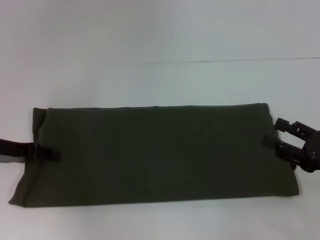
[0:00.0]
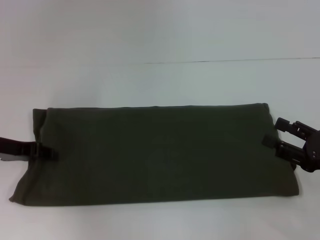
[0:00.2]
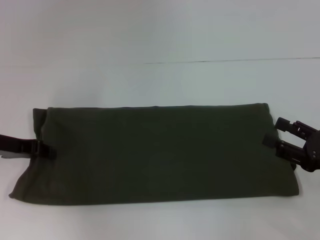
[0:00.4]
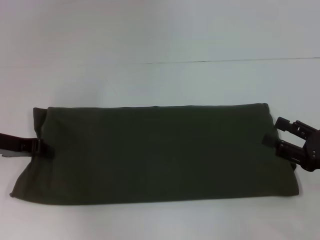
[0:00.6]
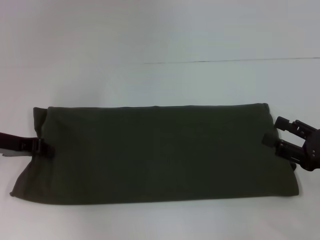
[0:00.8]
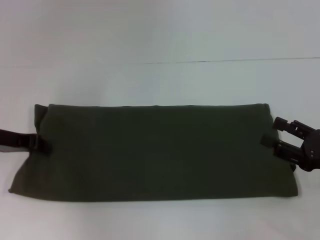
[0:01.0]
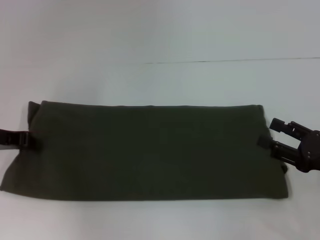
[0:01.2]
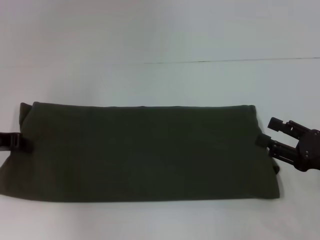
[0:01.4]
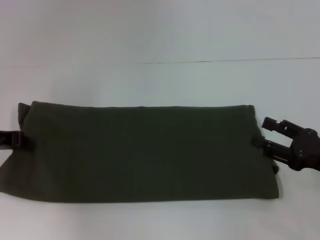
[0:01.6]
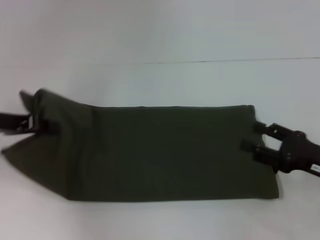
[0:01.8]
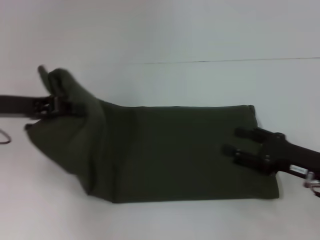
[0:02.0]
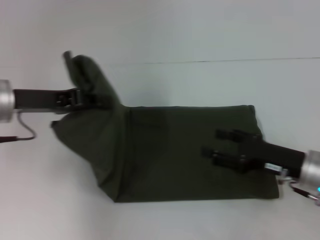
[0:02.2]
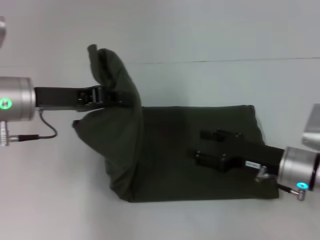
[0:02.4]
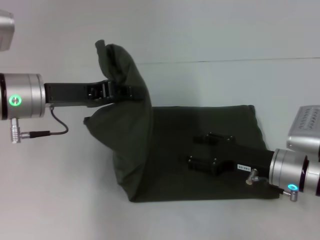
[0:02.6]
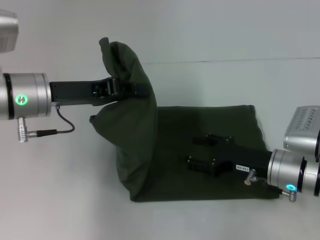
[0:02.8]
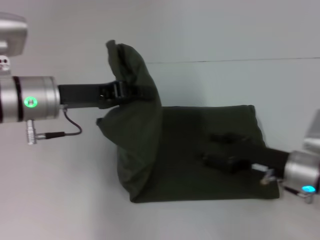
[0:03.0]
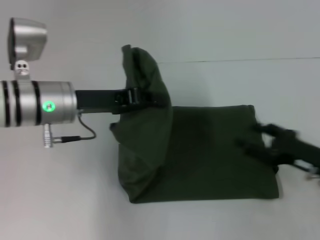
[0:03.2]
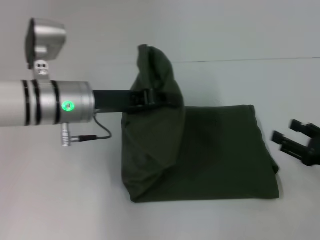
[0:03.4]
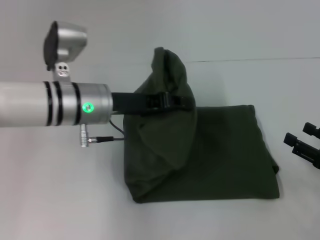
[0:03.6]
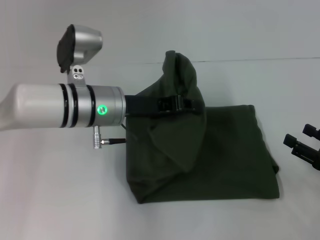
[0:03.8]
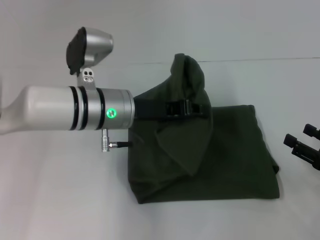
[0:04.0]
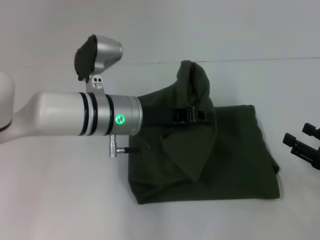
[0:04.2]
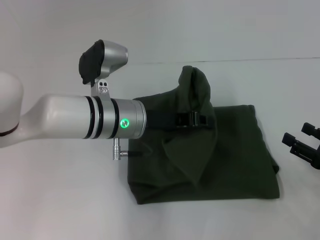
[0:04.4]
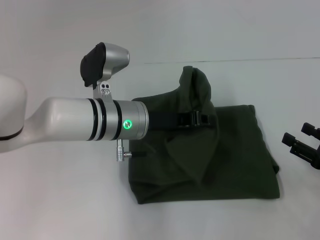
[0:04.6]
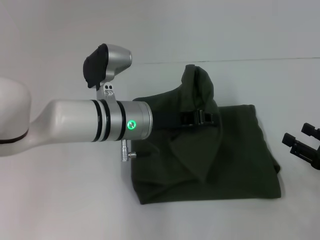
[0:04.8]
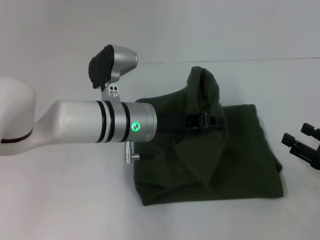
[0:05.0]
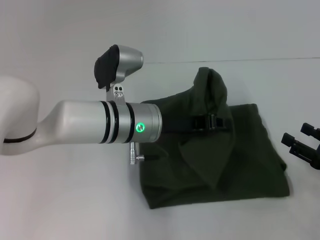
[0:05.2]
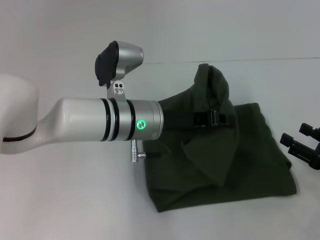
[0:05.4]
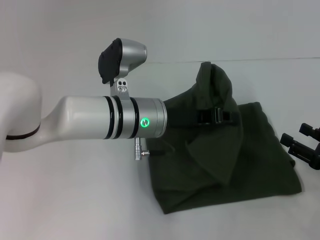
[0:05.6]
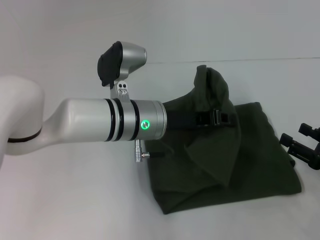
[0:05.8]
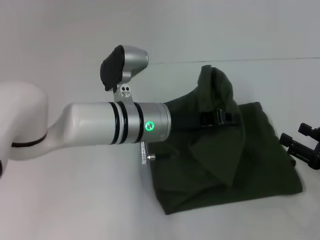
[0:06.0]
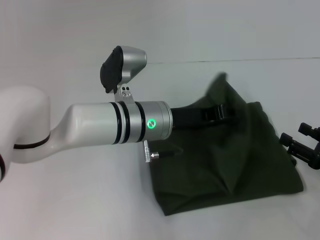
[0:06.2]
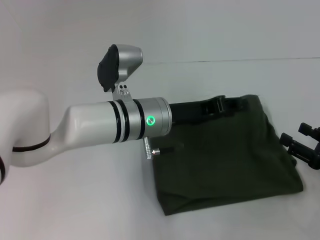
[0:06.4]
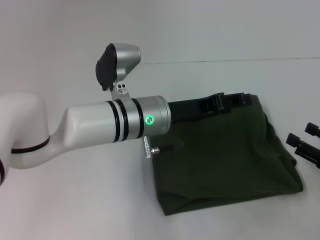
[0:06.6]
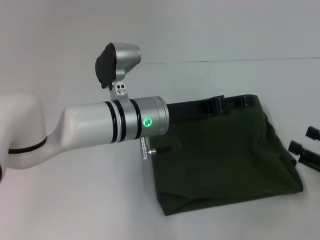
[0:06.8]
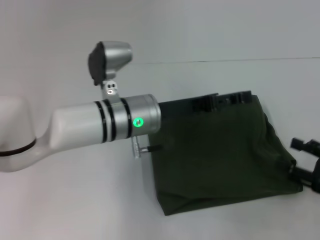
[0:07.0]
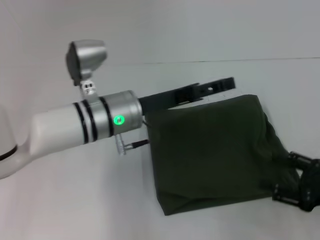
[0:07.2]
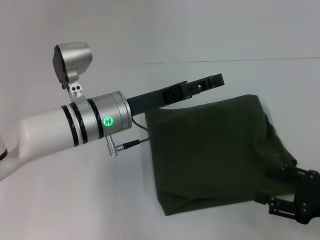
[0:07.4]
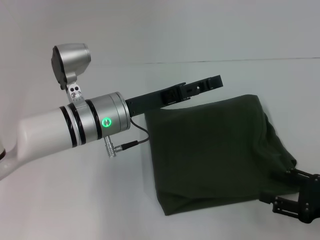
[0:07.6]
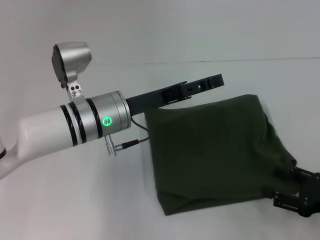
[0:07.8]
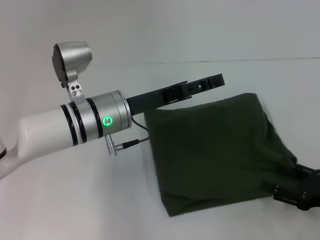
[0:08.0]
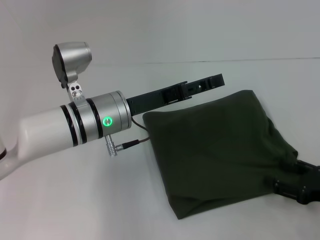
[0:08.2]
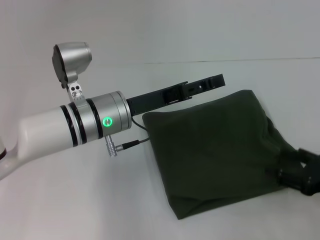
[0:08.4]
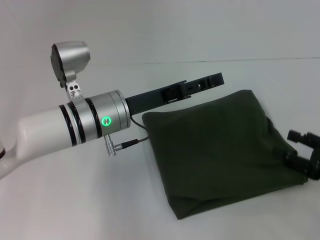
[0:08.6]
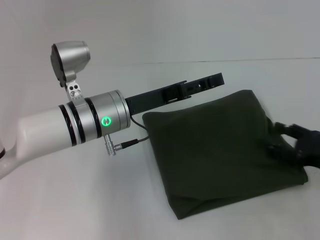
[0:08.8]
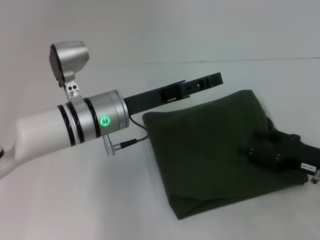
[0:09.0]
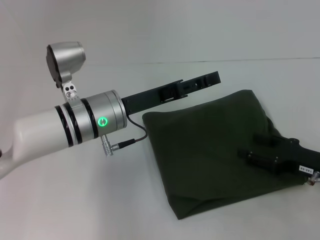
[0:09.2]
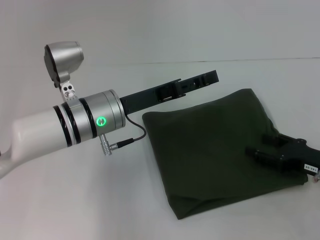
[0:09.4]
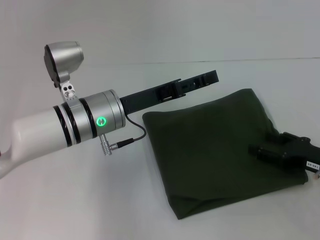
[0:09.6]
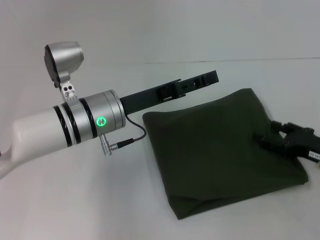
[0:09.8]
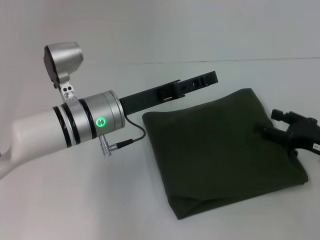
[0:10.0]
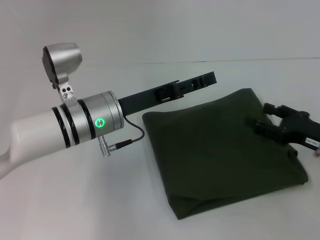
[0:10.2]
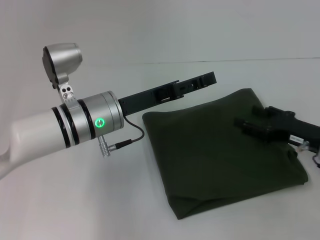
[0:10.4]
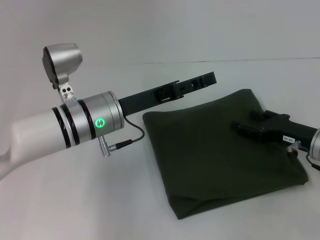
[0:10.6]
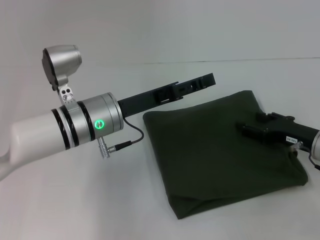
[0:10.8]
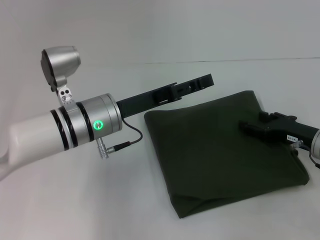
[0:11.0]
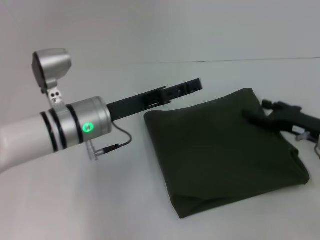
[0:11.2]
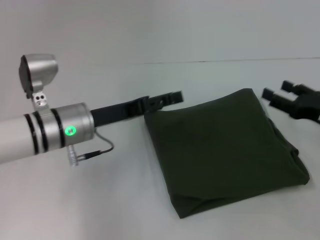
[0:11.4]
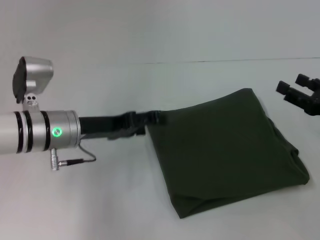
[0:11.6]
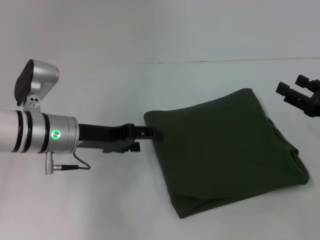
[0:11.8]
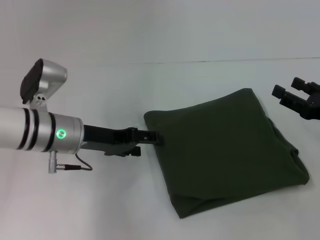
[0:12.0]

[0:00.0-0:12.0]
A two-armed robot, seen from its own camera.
Step, 0:00.0 to 0:07.2: Fold the clothes with your left hand.
0:00.0 to 0:01.6: The left gripper closes its fingers.
0:01.6 to 0:03.0: The right gripper heads to the left, covering approximately 10 cm. The left gripper travels to the right by some 15 cm.
0:03.0 to 0:04.4: The right gripper travels to the right and backward by approximately 15 cm, while the left gripper moves to the right, approximately 10 cm.
0:06.0 to 0:07.6: The left gripper heads to the left, covering approximately 5 cm, and opens its fingers.
0:07.6 to 0:09.0: The right gripper heads forward, covering some 5 cm.
0:09.0 to 0:10.4: There are only small adjustments of the grippers.
0:10.4 to 0:12.0: The left gripper goes approximately 5 cm to the left.

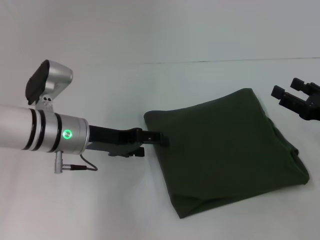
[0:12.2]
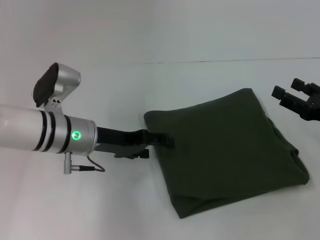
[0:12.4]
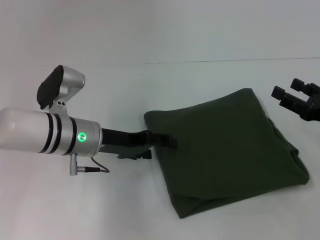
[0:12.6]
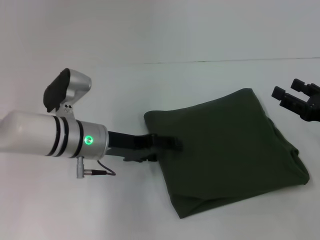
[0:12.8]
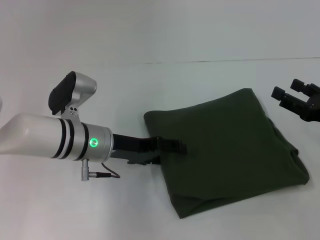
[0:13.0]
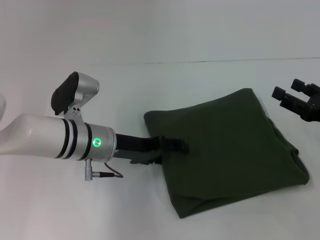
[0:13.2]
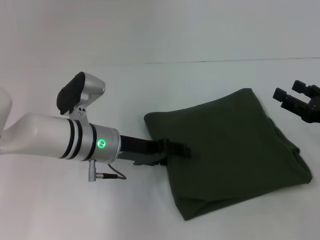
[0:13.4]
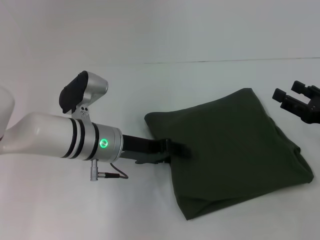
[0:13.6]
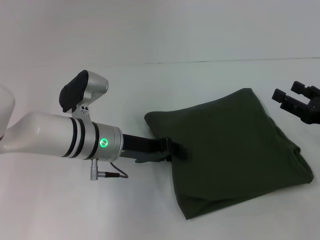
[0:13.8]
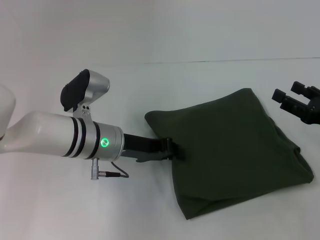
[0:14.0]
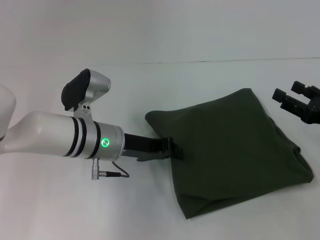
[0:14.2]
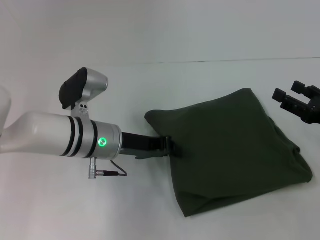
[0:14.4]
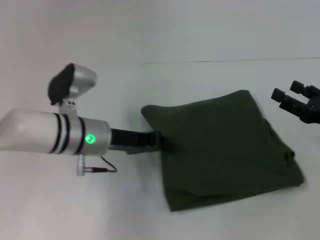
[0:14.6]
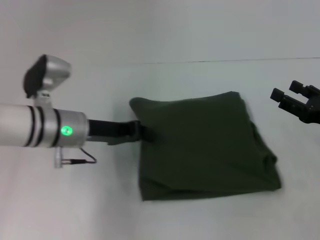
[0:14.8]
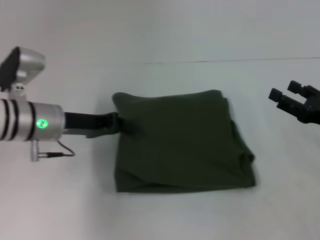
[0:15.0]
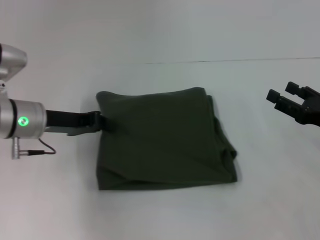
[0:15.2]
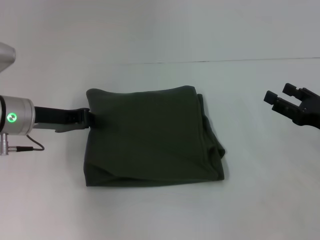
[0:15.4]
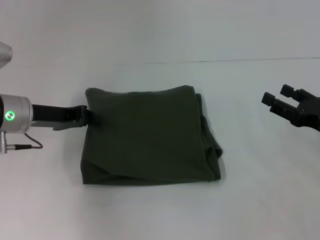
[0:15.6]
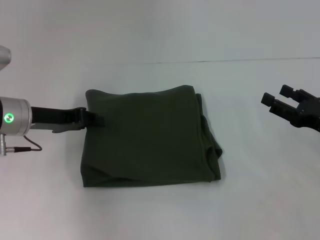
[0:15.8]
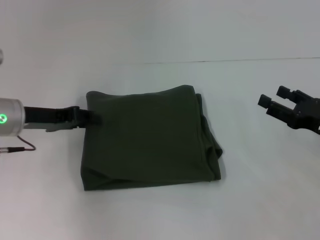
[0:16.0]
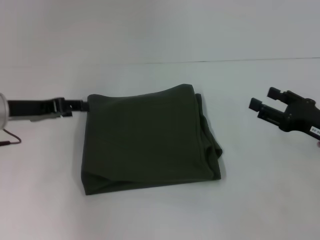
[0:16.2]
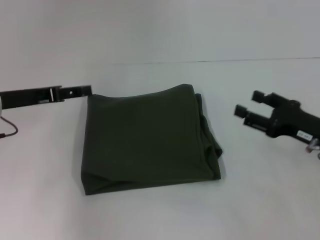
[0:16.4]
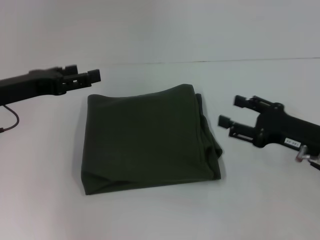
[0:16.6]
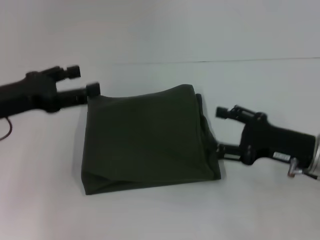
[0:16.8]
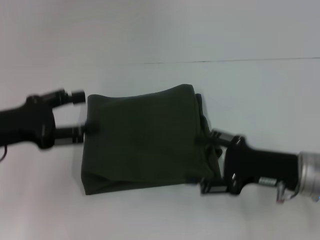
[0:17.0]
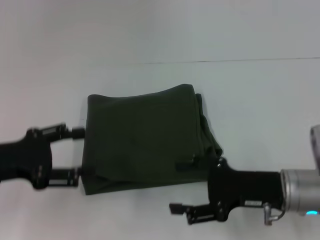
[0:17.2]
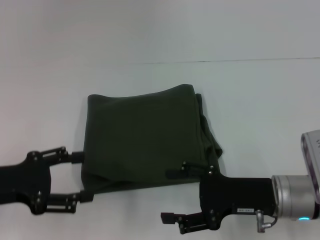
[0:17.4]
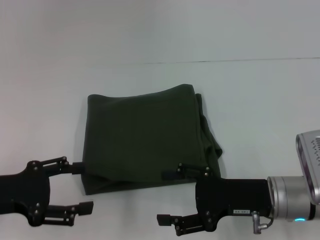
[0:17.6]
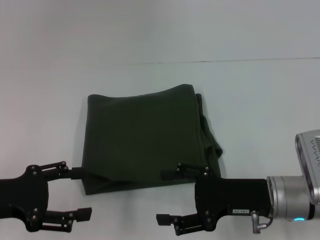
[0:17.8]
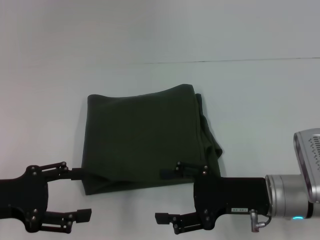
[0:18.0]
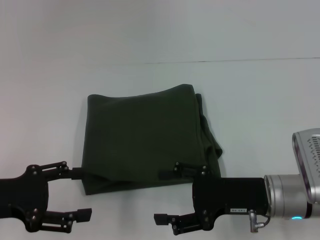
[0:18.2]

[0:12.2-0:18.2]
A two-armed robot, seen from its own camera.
0:12.2 to 0:13.8: The left gripper shifts by approximately 5 cm, and closes.
0:13.8 to 0:15.2: The left gripper shifts approximately 10 cm to the left, and closes up.
0:15.2 to 0:16.6: The left gripper changes place by about 5 cm, and opens. Meanwhile the right gripper moves to the left, some 5 cm.
0:16.6 to 0:18.2: The left gripper goes approximately 10 cm backward, while the right gripper goes some 10 cm to the left.

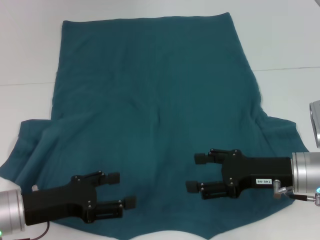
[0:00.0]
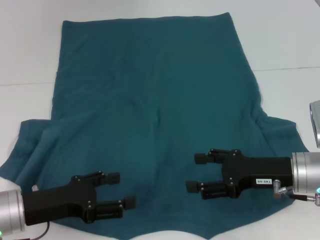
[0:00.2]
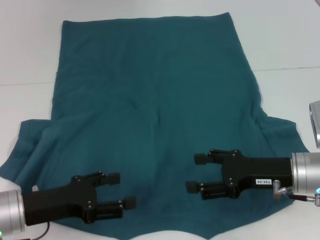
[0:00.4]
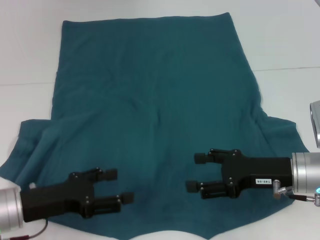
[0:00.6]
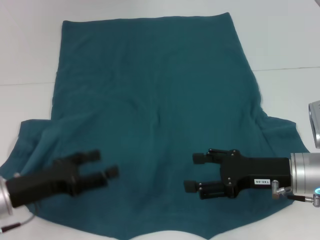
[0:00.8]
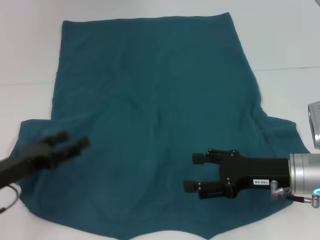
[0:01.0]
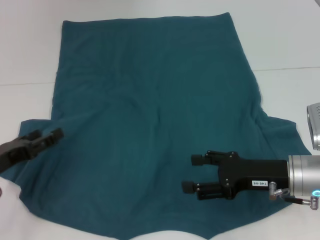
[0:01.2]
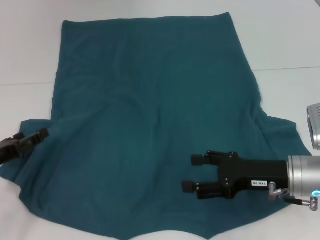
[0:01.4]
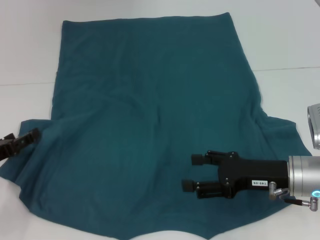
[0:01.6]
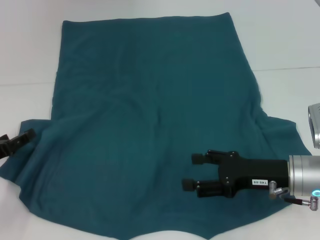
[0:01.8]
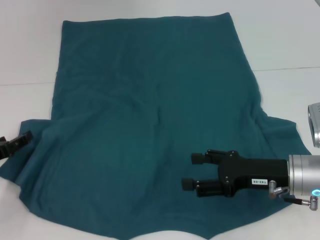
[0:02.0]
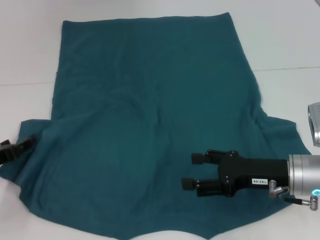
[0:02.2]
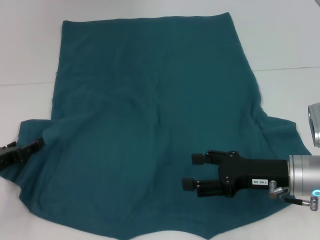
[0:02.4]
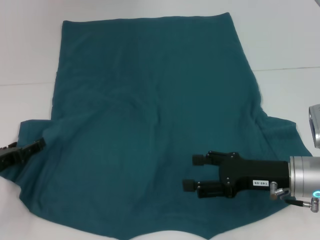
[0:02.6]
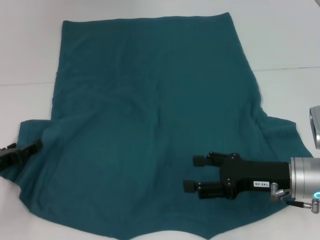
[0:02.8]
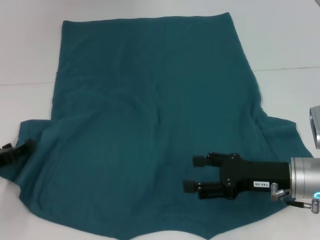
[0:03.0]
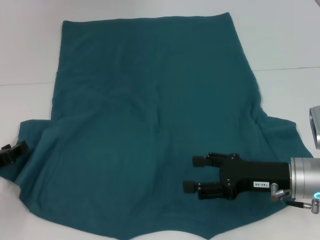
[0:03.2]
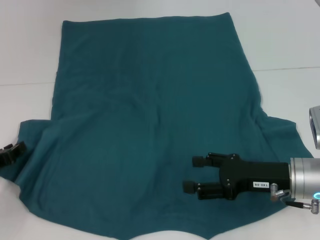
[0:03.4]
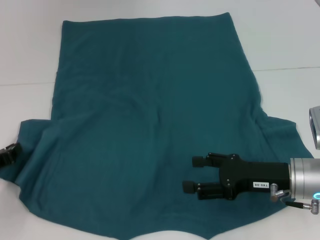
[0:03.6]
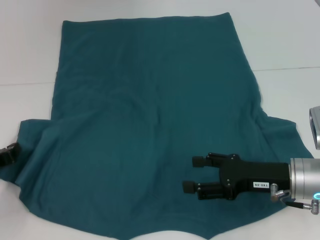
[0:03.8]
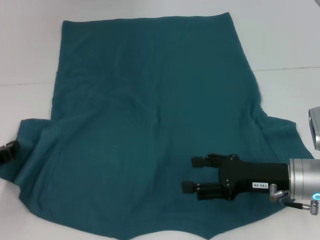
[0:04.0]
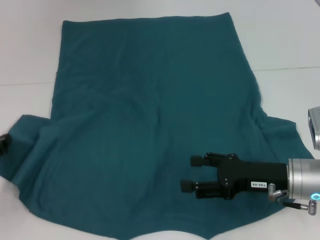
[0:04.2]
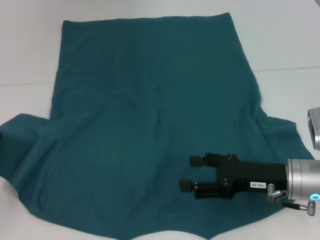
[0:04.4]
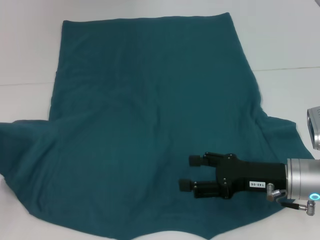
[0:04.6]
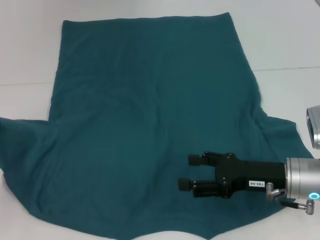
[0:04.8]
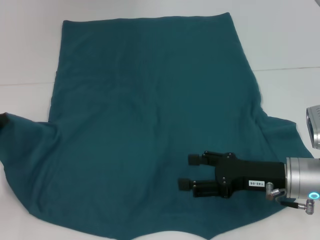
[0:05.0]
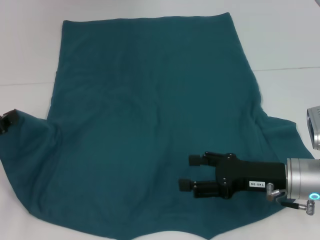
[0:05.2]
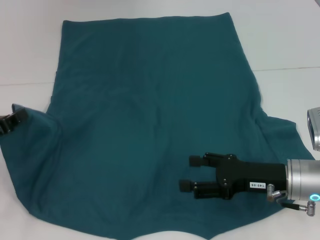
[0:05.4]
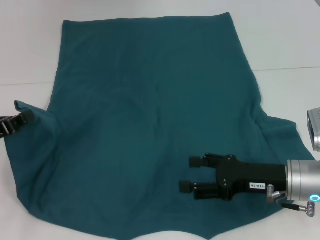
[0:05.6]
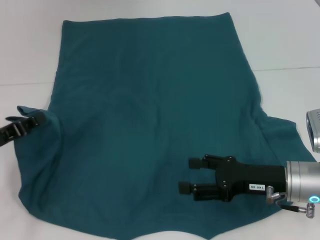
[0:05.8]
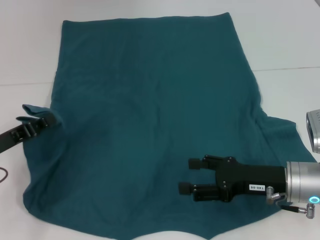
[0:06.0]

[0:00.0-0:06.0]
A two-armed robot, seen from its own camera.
0:00.0 to 0:01.6: The left gripper moves to the left, about 10 cm.
0:01.6 to 0:03.0: The grippers make only small movements.
0:03.0 to 0:04.4: The left gripper closes its fingers.
0:04.4 to 0:06.0: The left gripper travels to the right by some 5 cm.
